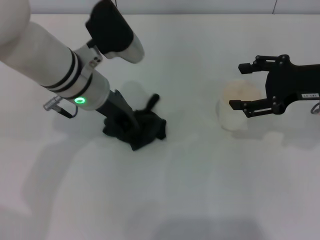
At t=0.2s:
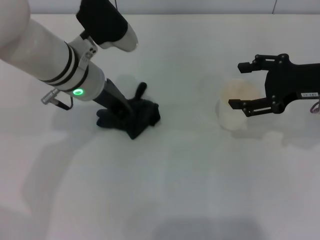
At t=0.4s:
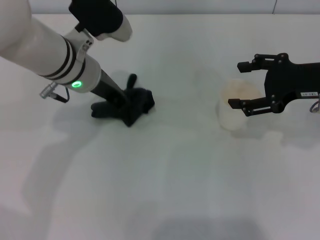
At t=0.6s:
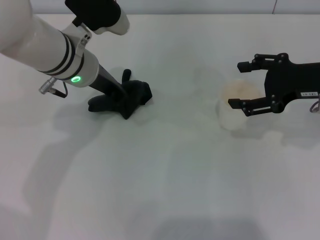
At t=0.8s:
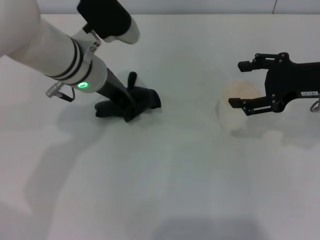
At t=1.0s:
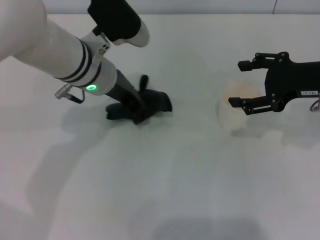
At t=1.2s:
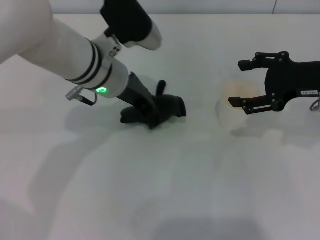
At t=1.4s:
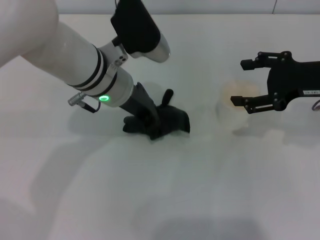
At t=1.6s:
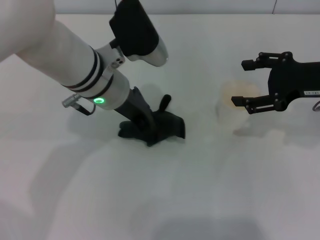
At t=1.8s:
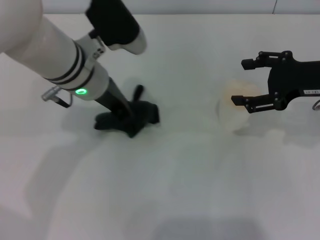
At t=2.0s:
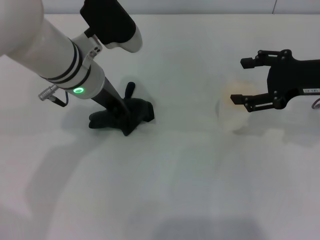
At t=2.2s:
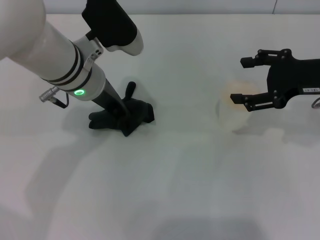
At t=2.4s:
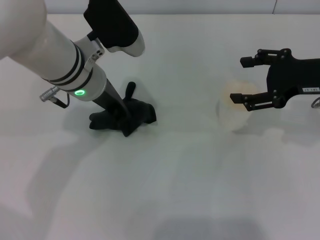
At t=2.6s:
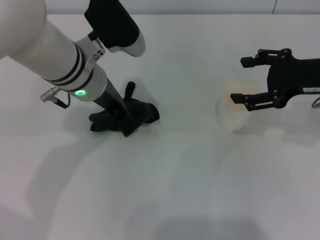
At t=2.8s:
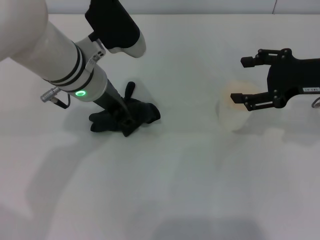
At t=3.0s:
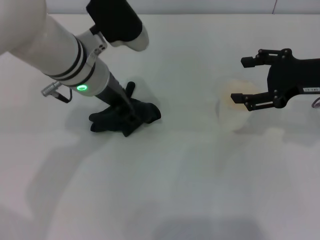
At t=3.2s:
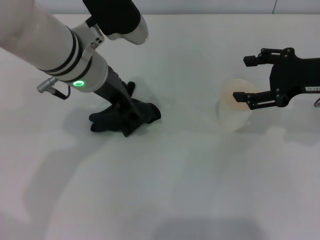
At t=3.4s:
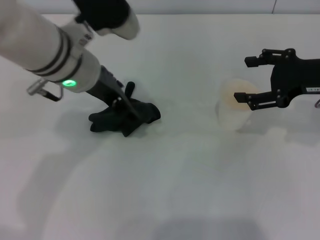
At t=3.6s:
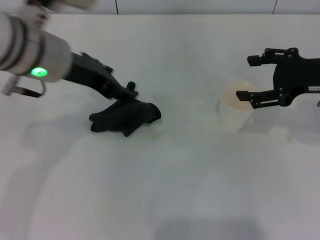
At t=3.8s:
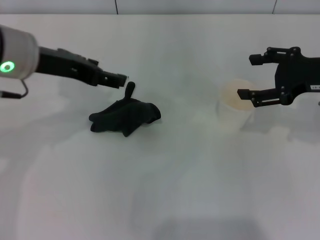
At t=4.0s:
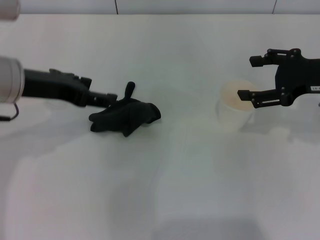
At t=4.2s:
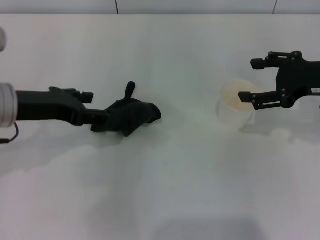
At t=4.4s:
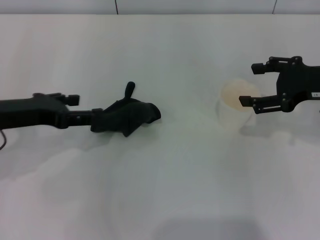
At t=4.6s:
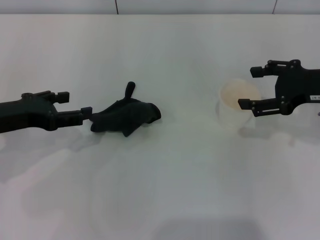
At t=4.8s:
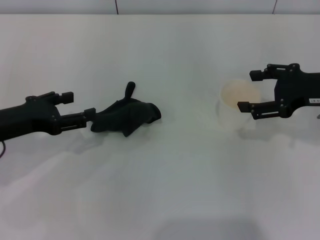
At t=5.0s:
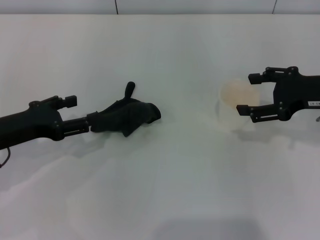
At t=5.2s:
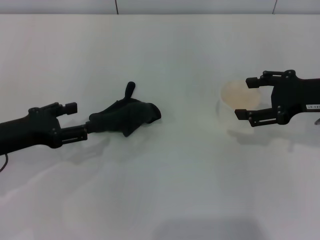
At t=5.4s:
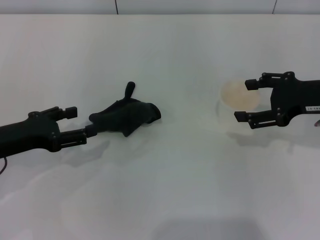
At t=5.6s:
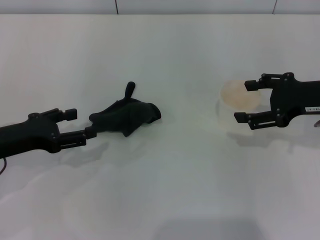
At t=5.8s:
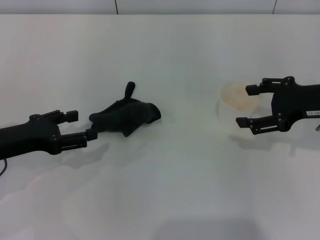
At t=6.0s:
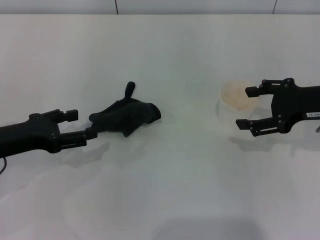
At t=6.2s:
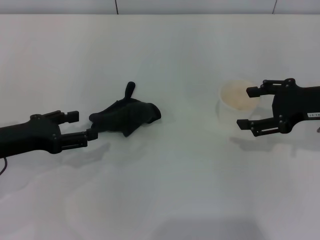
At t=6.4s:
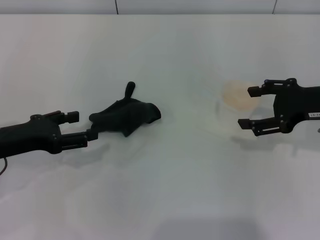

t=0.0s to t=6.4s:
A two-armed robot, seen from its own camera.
Step, t=1.8s to t=3.6s: Place the rag on the table with the left gripper.
t=0.0s to t=1.6s: The grippers stay close to where they were, moving slightly.
t=1.6s to t=3.2s: The left gripper opens up.
t=3.2s to t=4.8s: The left gripper shifts roughly 20 cm to the left, backward and downward.
t=4.8s to t=6.4s: There are only small adjustments of the grippers.
